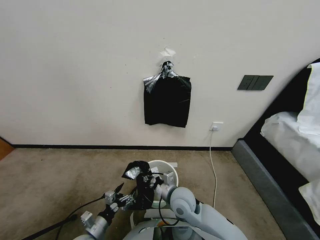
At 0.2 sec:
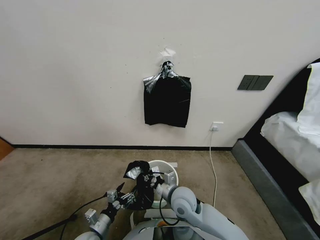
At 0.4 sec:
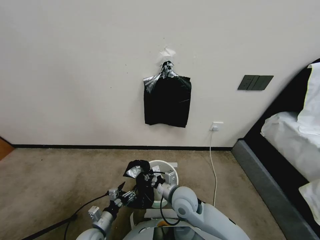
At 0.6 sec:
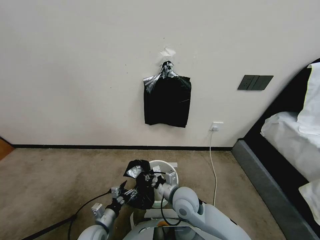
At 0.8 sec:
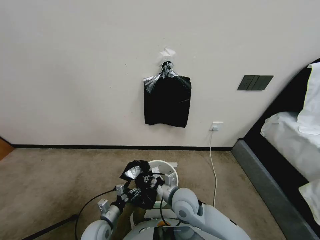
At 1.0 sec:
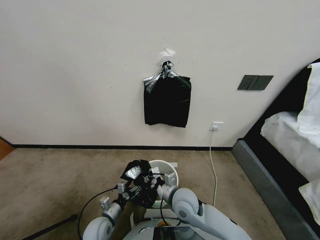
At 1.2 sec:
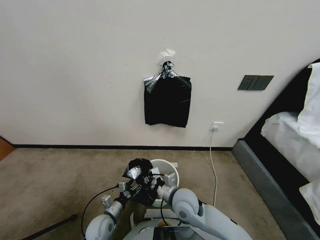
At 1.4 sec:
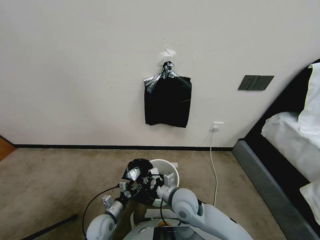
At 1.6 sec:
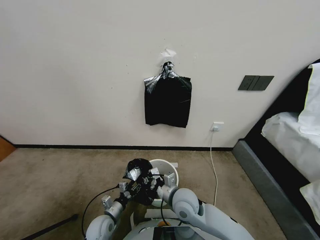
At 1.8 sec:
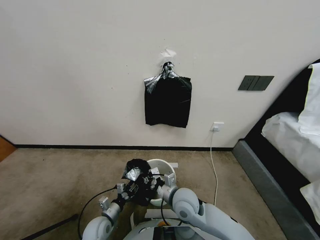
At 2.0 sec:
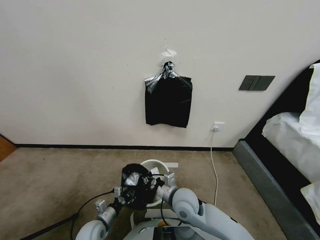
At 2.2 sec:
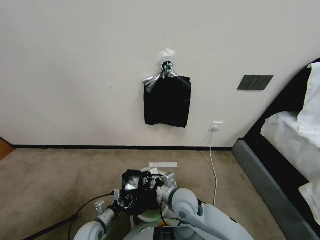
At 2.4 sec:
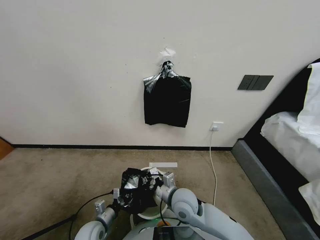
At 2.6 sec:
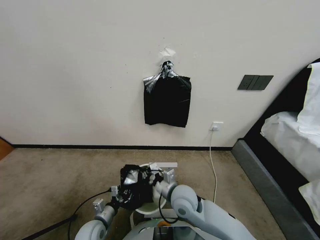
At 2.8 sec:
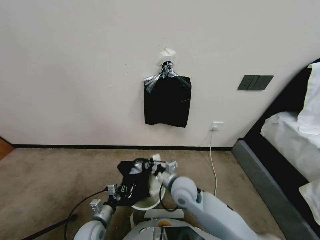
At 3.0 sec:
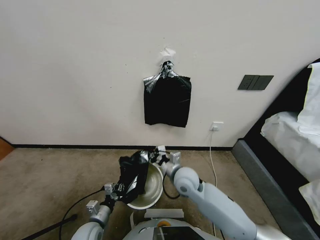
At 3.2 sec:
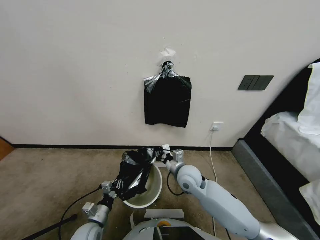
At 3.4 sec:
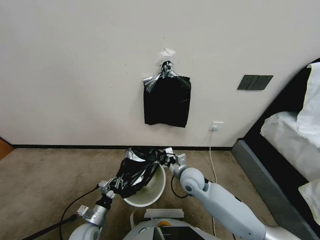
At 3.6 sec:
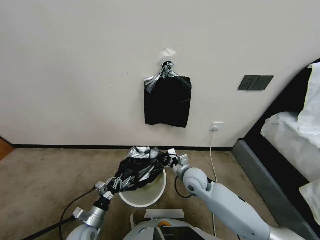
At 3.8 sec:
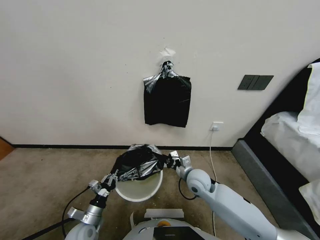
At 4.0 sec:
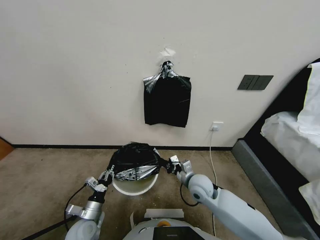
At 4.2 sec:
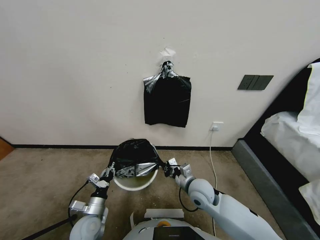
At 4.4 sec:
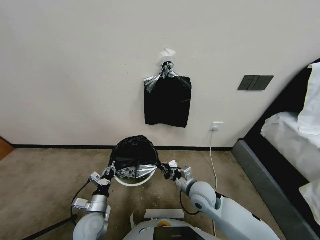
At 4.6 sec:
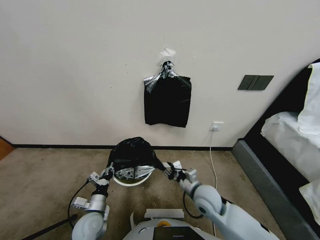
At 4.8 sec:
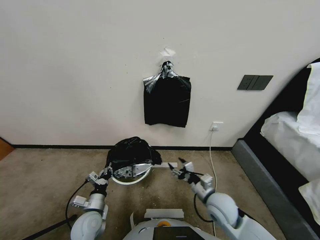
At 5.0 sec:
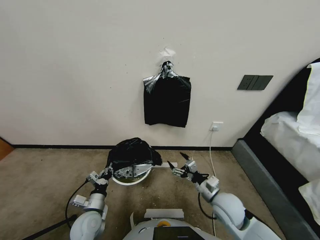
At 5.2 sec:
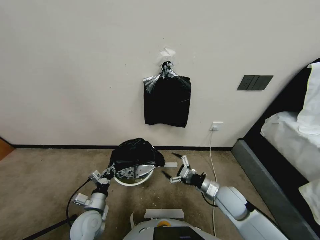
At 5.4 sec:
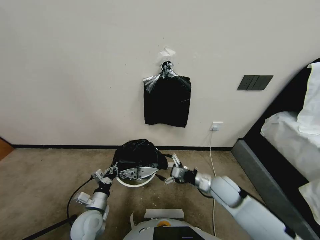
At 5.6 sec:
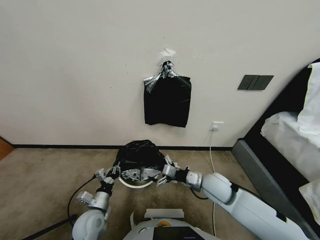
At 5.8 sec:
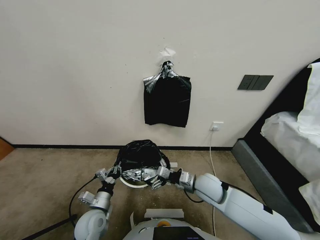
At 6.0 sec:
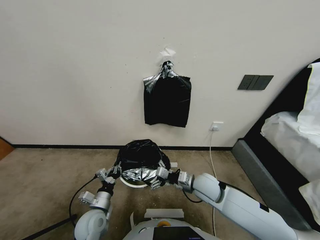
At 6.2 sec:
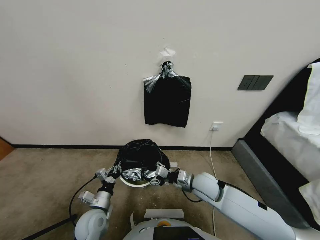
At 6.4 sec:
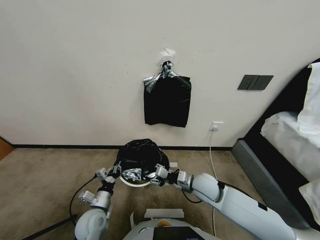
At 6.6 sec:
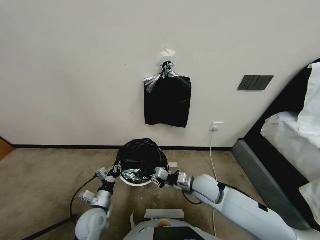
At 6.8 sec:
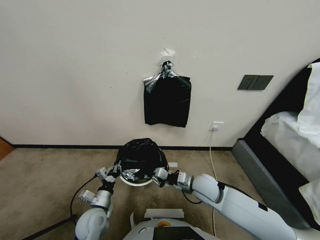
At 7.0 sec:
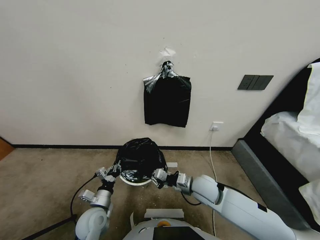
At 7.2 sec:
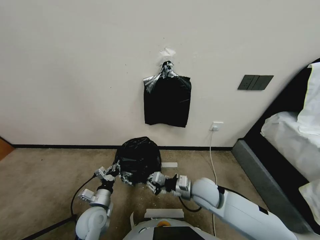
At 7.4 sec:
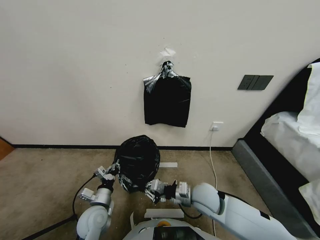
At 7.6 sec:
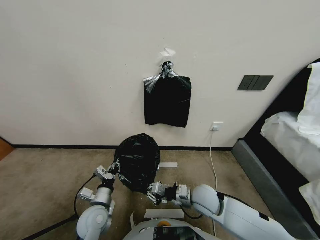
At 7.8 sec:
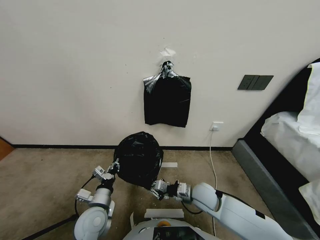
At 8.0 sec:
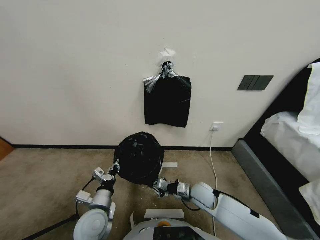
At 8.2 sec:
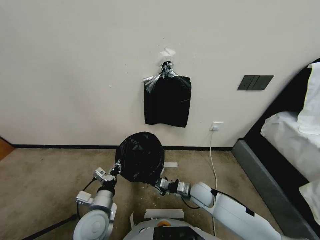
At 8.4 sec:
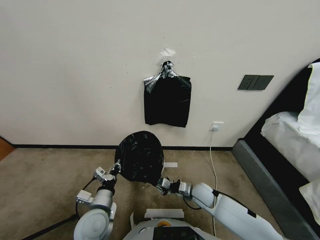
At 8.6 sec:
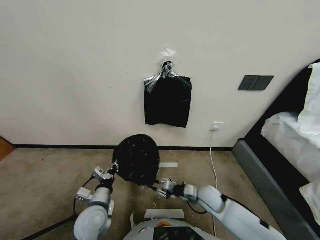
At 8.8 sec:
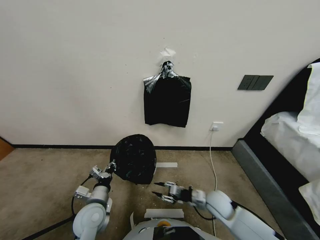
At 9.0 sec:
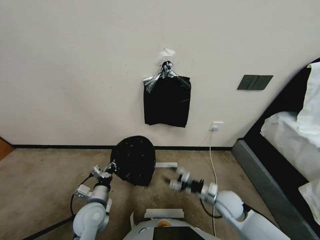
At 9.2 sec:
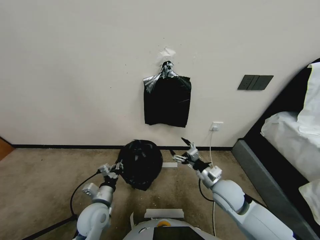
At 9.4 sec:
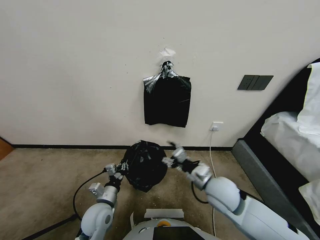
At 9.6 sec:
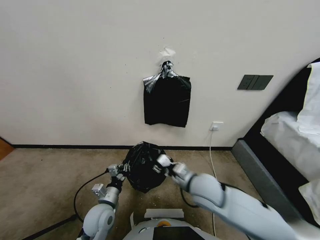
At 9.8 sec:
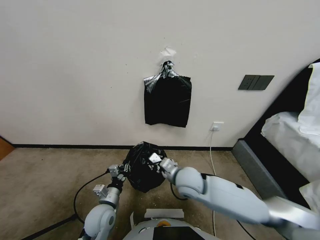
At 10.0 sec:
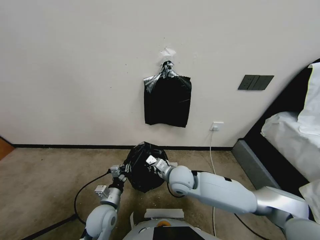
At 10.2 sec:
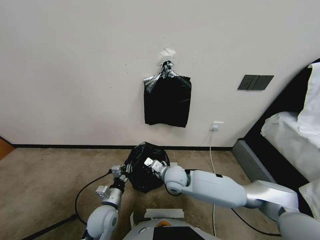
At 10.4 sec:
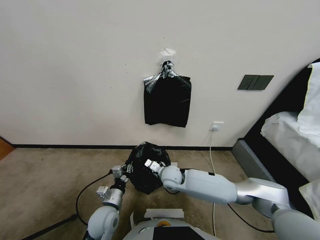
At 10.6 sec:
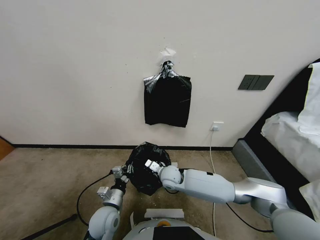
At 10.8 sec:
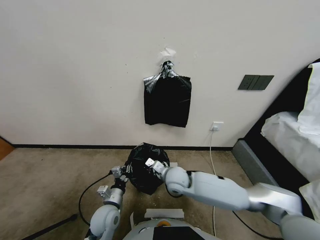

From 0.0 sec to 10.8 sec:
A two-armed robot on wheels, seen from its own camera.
Task of the whole recording: Place a trash bag onto the trash bin.
From 0.0 sec to 1.6 sec: The left gripper heads forward, covering roughly 5 cm, and closes its fingers.
From 1.6 sec to 3.0 sec: The right gripper travels forward by some 10 cm. The left gripper closes its fingers.
From 3.0 sec to 4.6 sec: The right gripper shifts some 10 cm backward and to the right, and opens its fingers.
From 4.6 sec to 6.2 sec: The right gripper travels forward by approximately 5 cm, moves roughly 5 cm to the right and comes back, and opens and closes again.
From 6.2 sec to 7.8 sec: The right gripper goes about 5 cm downward, and closes up. Meanwhile the left gripper changes place by about 5 cm.
From 7.8 sec to 9.2 sec: The right gripper goes about 10 cm upward, and opens.
From 9.2 sec to 10.8 sec: The right gripper heads to the left, covering about 10 cm, and closes up.

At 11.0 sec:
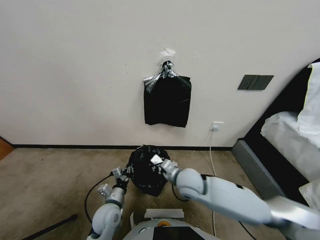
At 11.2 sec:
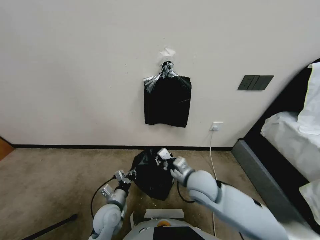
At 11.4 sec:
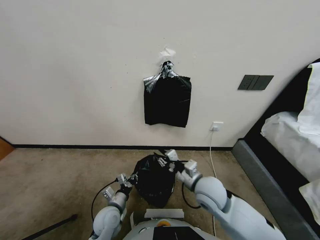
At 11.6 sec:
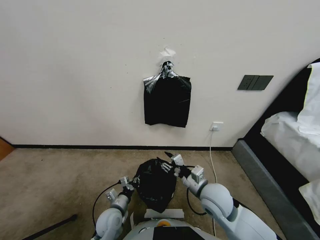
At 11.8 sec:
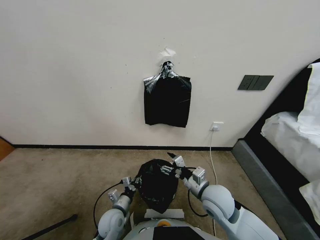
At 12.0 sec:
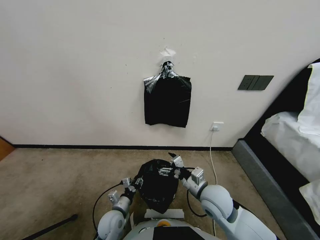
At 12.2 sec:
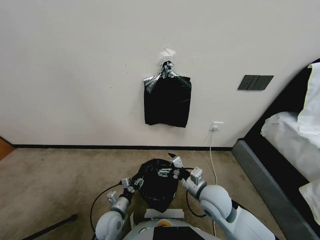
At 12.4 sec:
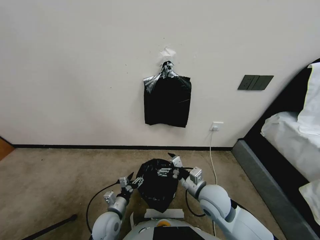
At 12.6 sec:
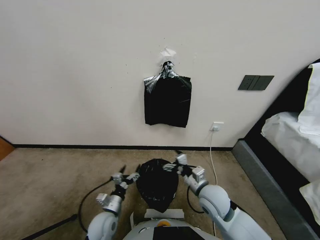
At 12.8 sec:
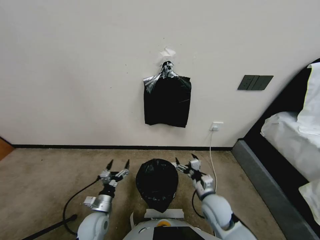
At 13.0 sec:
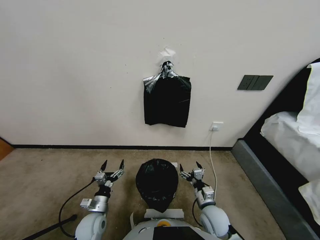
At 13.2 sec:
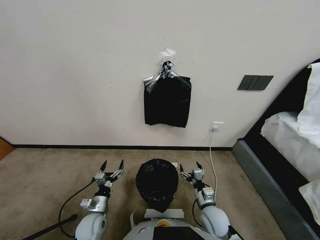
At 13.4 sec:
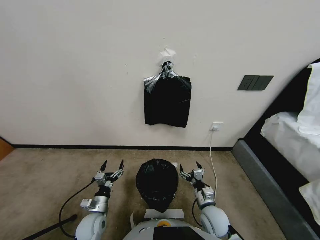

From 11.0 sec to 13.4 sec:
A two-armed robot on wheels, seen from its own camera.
Task of the whole recording: Place a trash bag onto the trash bin.
From 11.0 sec to 12.2 sec: The left gripper opens, while the right gripper shifts approximately 5 cm to the right, and opens.
From 12.2 sec to 13.4 sec: The right gripper moves downward, approximately 10 cm. Meanwhile the left gripper moves to the left, roughly 5 cm.
